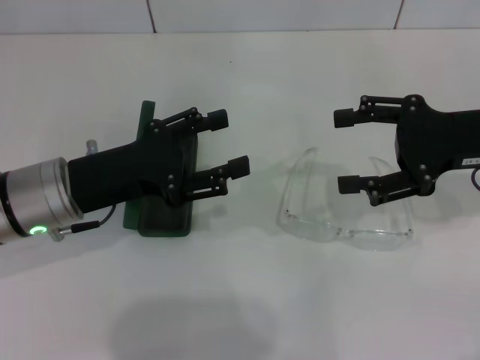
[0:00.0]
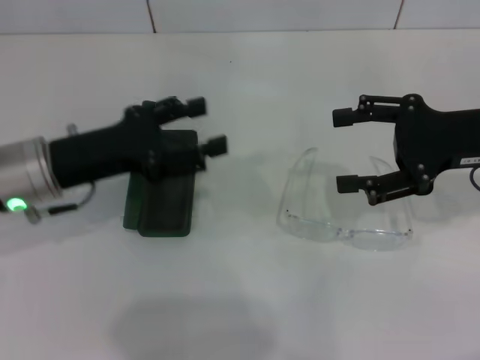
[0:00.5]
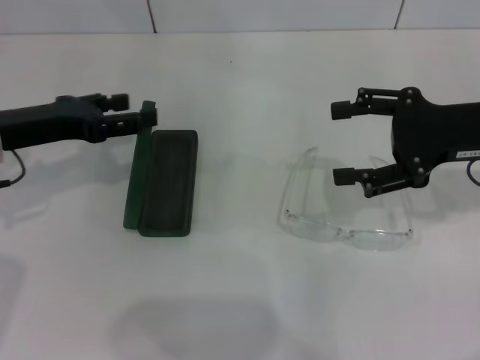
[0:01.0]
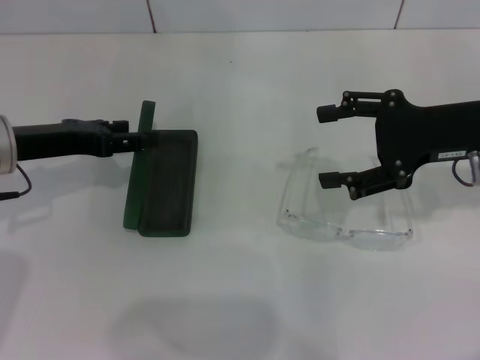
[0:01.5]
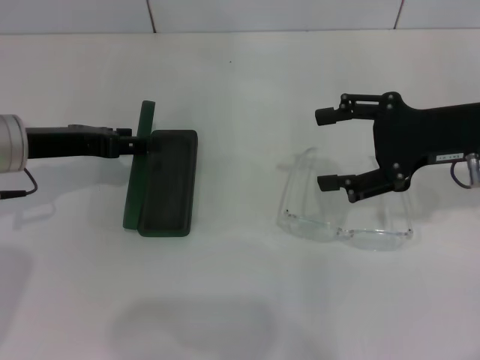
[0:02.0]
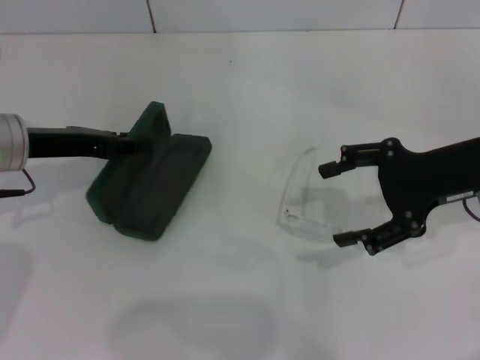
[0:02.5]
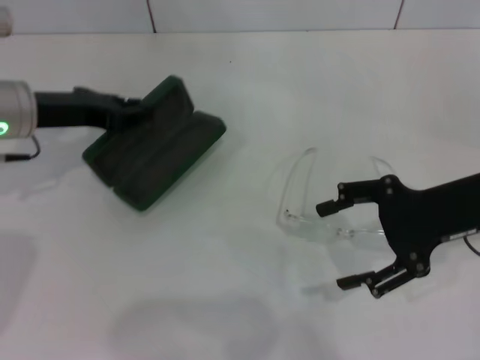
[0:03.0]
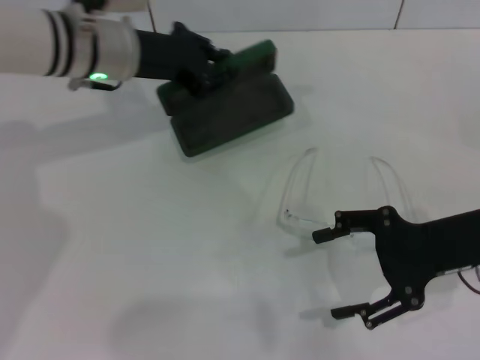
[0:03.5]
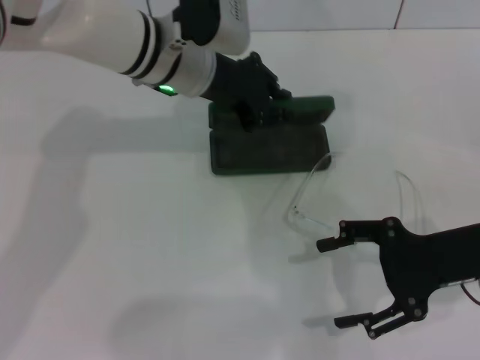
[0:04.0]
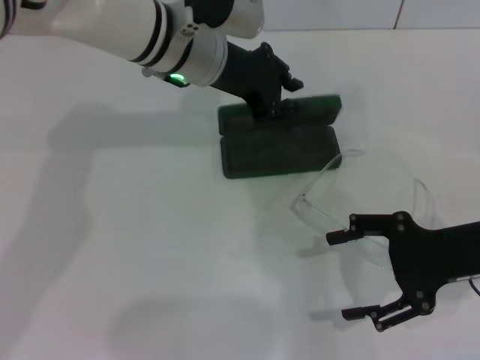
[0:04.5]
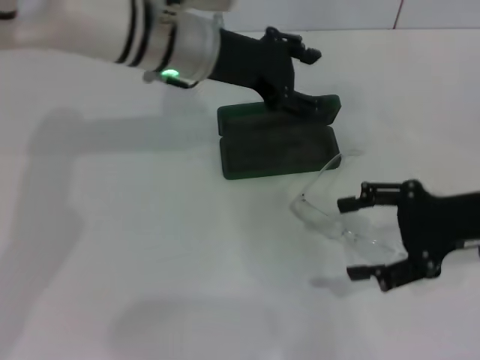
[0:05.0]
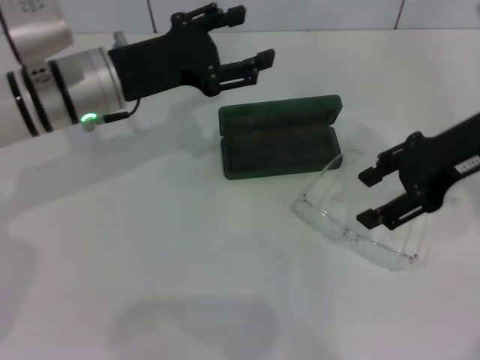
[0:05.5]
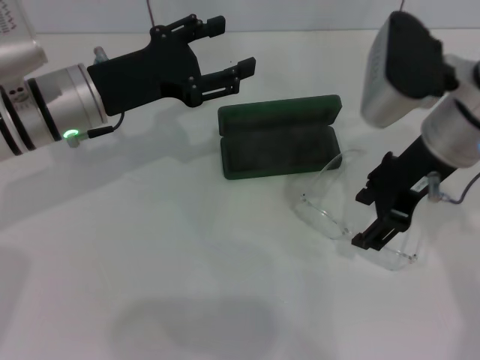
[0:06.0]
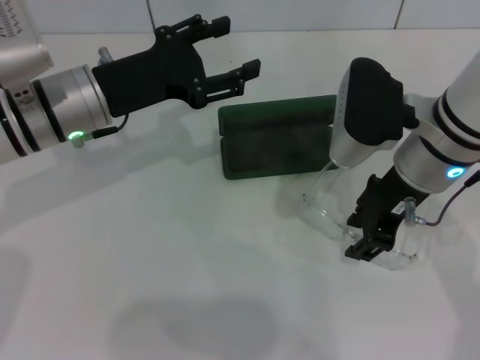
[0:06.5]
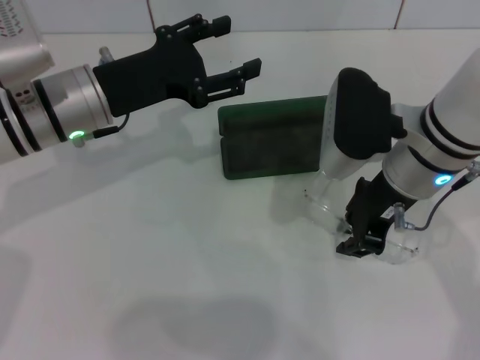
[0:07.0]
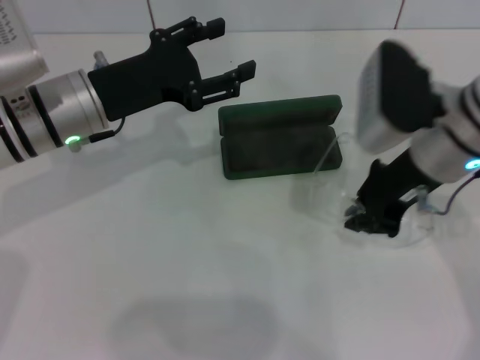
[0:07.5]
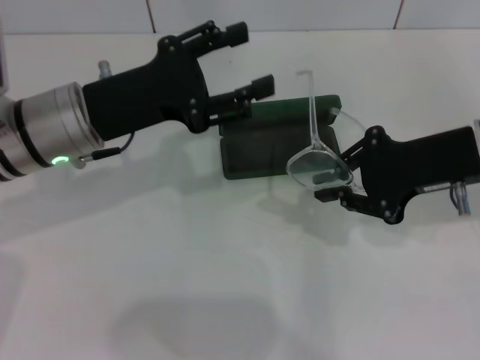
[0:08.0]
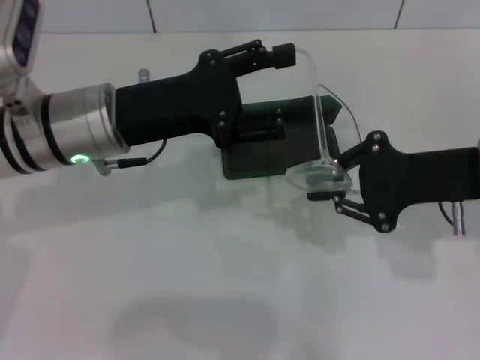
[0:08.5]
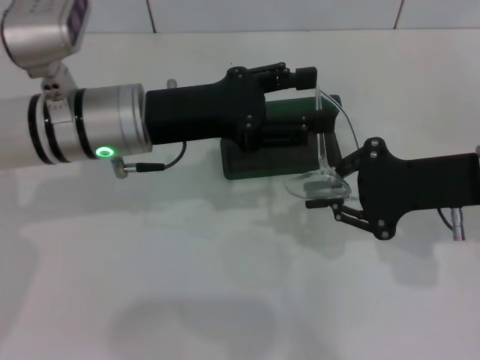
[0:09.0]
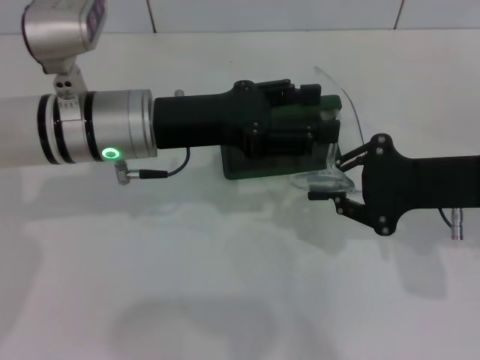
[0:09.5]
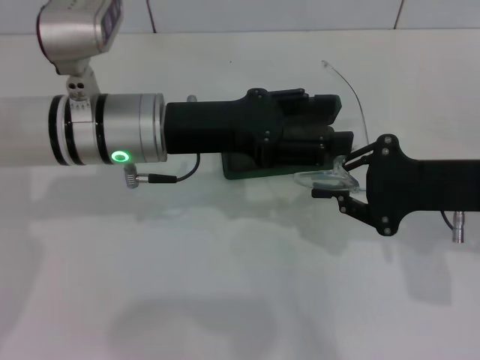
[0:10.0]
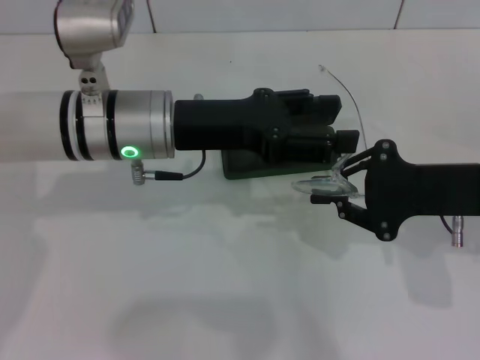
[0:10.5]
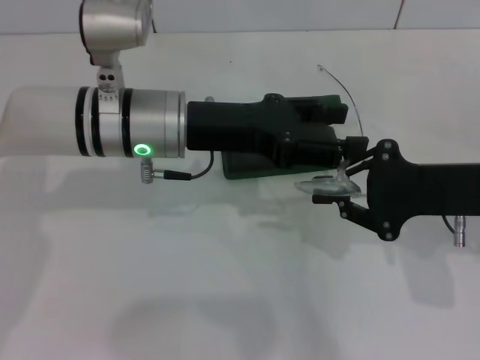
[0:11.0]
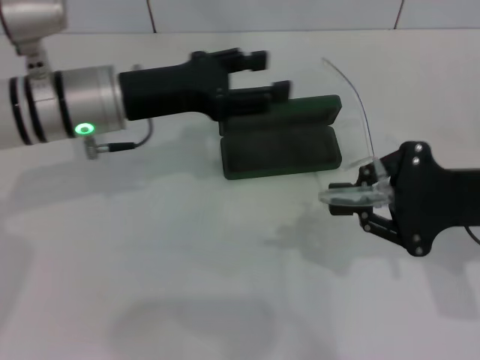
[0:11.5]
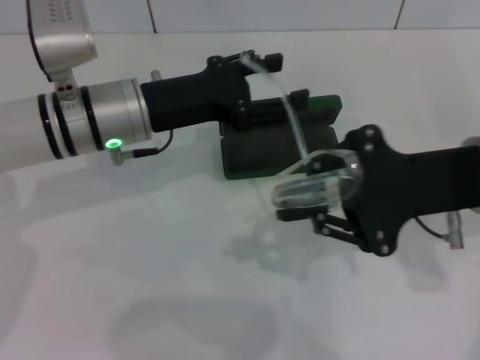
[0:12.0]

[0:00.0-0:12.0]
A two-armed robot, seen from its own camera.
Step, 0:00.0 to 0:02.5: Grab the glasses case with your left hand.
Step, 0:03.0 to 0:04.0: Place the glasses case in the center of the table with your left hand.
Step, 0:04.5 to 0:07.0: Grab the eyeglass frame with your right hand.
0:00.0 to 0:02.0: The left gripper is displaced forward and to the left by about 10 cm.
0:02.0 to 0:04.0: The left gripper travels to the right and forward by approximately 20 cm, and closes its fingers, while the right gripper is displaced backward and downward by about 10 cm.
0:04.0 to 0:06.0: The left gripper moves to the left and backward, approximately 10 cm, and opens up; the right gripper travels upward, to the left and forward by about 15 cm.
0:06.0 to 0:08.0: The right gripper moves to the right, roughly 5 cm, and closes its fingers.
0:08.0 to 0:10.0: The left gripper goes about 5 cm to the right; the right gripper changes place by roughly 5 cm.

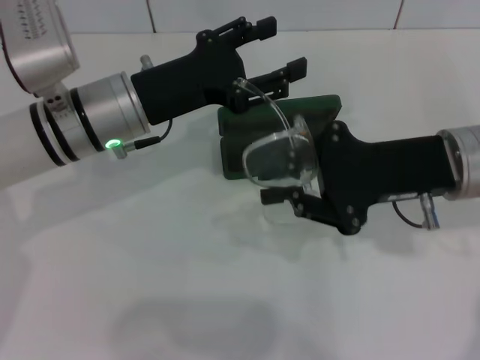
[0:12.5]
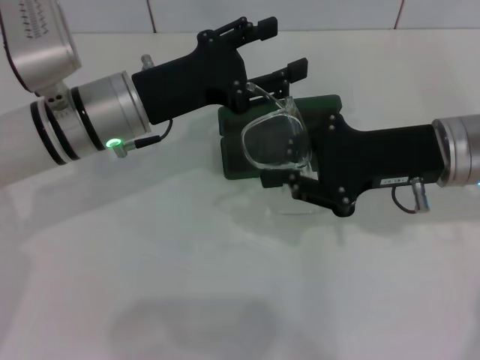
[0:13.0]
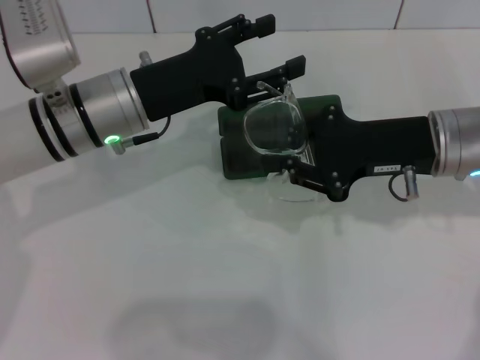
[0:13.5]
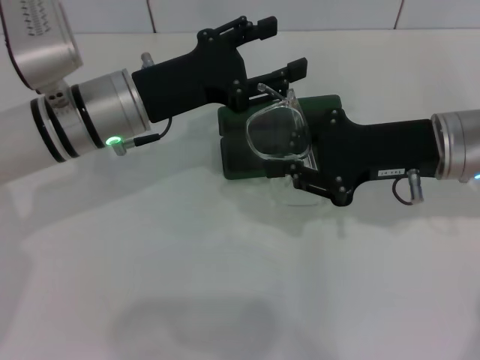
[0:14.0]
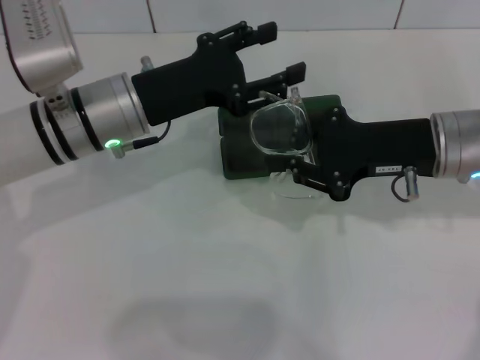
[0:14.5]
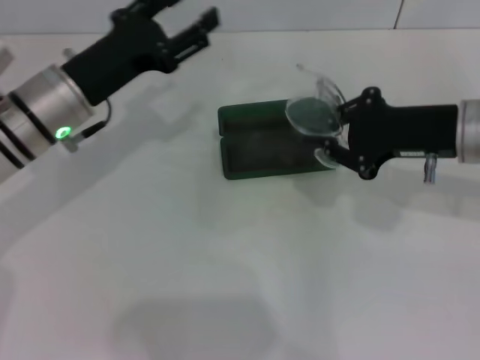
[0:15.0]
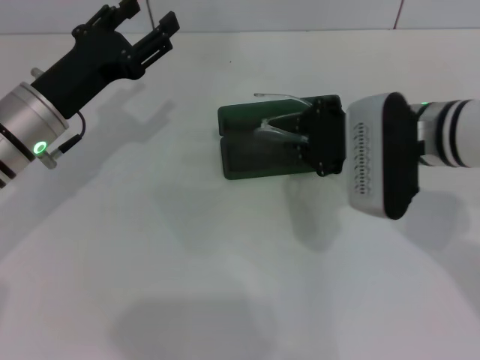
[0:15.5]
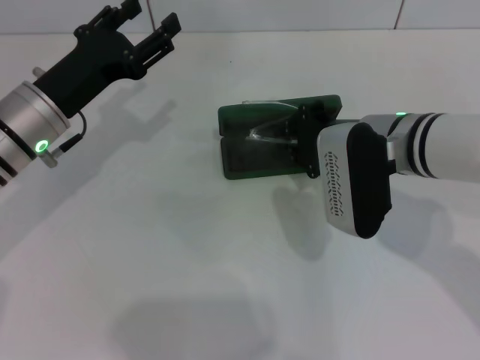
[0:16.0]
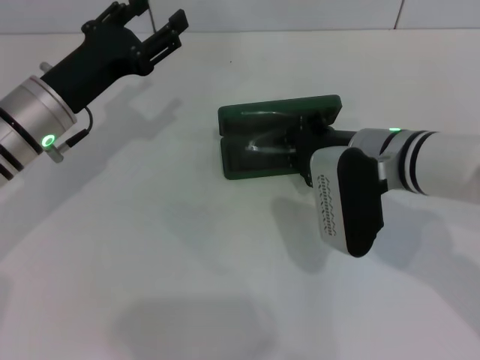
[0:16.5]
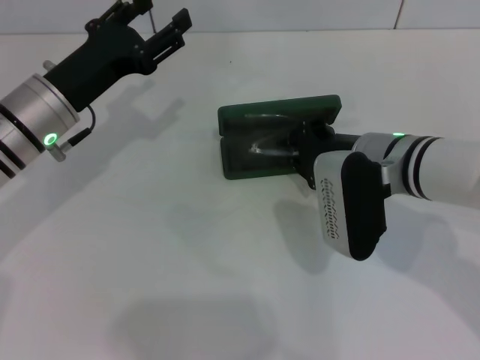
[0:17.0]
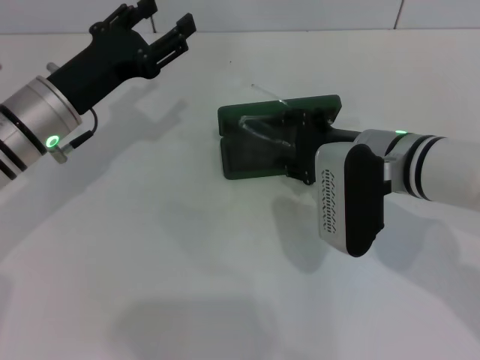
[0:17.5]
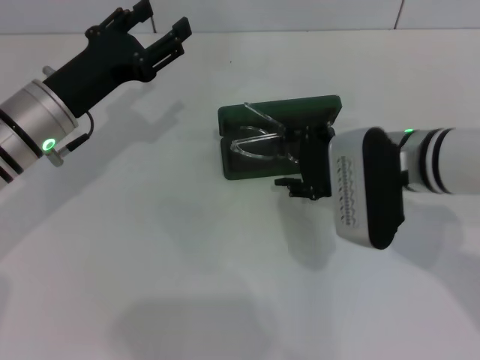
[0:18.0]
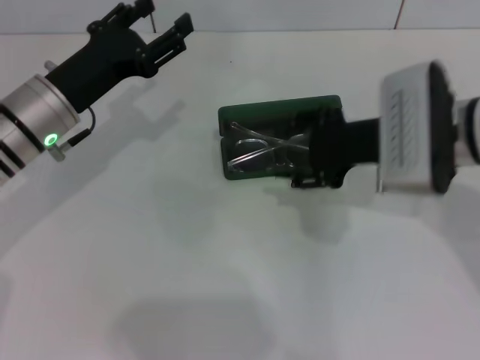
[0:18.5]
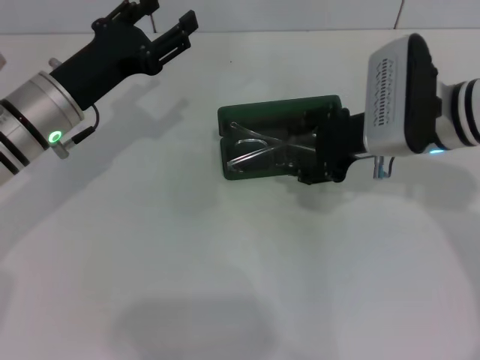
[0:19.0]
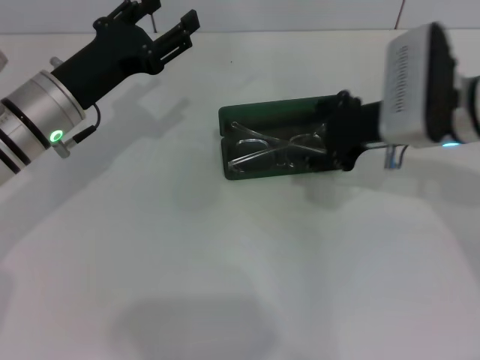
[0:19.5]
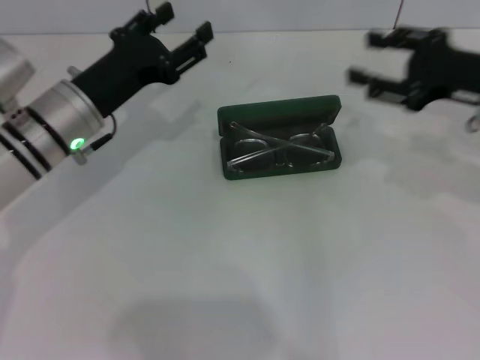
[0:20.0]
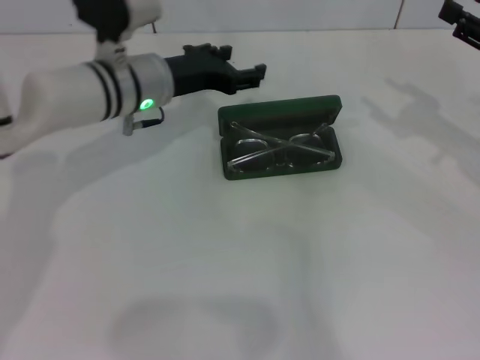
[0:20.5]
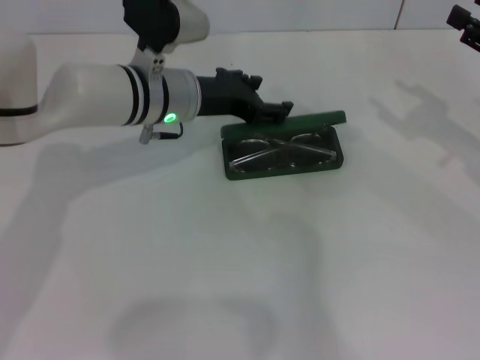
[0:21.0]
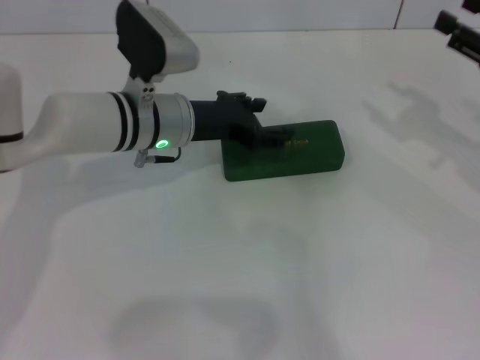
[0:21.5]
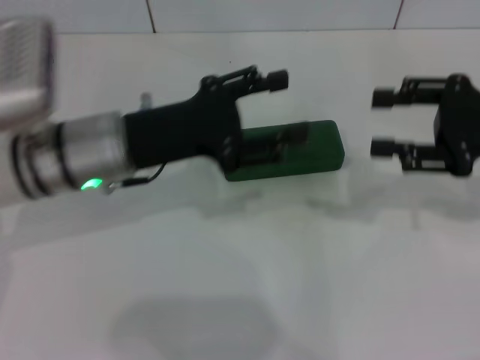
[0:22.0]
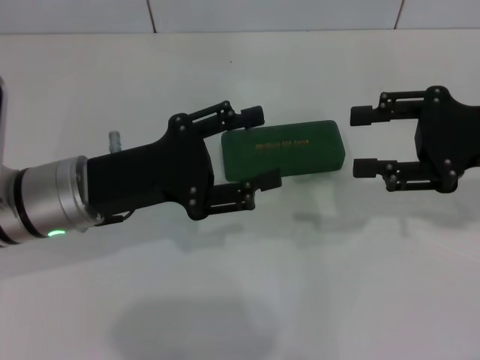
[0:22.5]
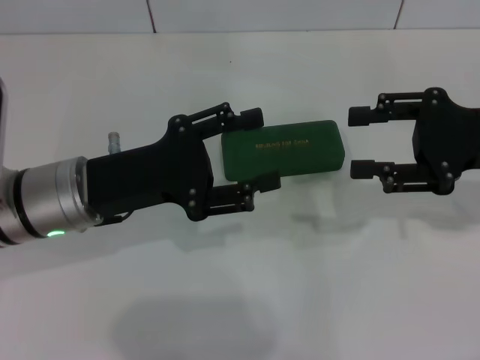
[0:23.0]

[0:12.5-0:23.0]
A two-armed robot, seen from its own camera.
Step, 0:14.0 to 0:18.0: Put the glasses into the case with your right hand.
Step, 0:18.5 to 0:21.0: Close the glasses case with your left hand.
0:12.5 to 0:14.5: The grippers stay close to where they were, moving slightly.
0:14.5 to 0:16.5: Both grippers travel together to the left, approximately 5 cm.
0:16.5 to 0:19.0: The right gripper ends up some 5 cm from where it was, and opens.
0:19.0 to 0:21.0: The right gripper travels to the right by roughly 20 cm. The left gripper travels to the right and forward by roughly 10 cm.
0:21.0 to 0:23.0: The right gripper shifts approximately 5 cm to the left. Meanwhile the left gripper moves backward and to the left, about 15 cm.

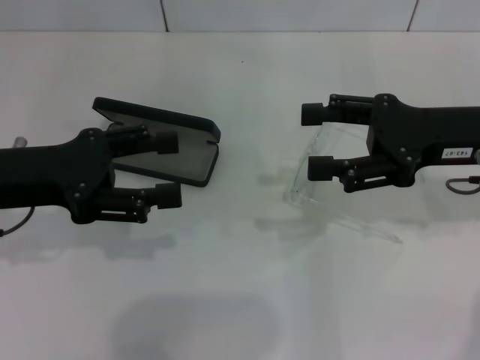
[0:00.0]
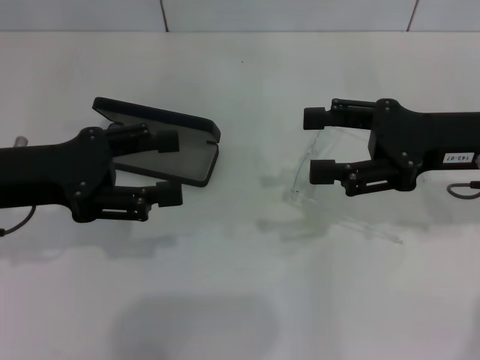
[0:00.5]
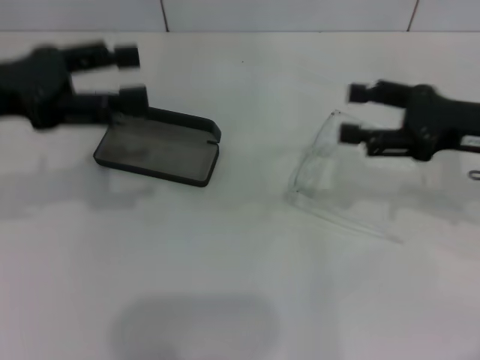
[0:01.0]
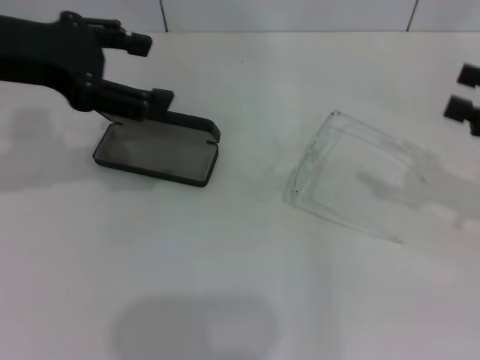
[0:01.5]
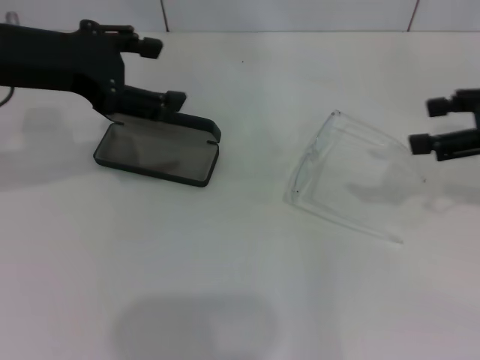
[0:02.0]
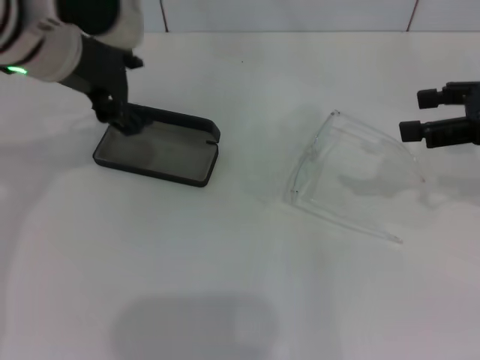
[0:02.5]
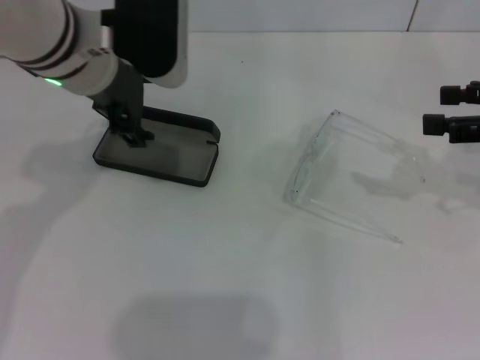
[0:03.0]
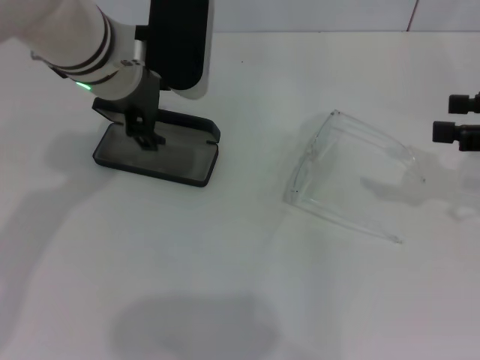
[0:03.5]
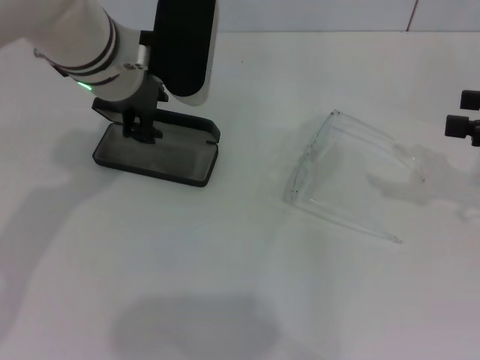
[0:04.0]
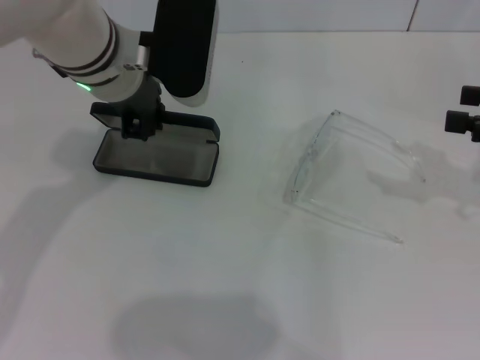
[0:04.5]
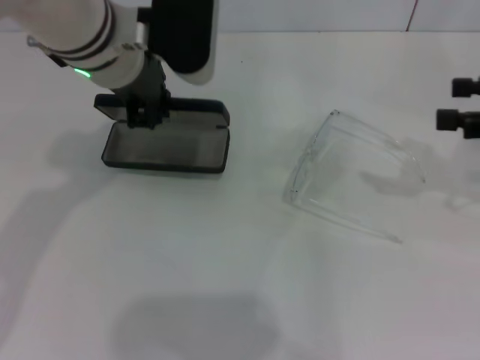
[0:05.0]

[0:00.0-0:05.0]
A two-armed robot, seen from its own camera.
Step, 0:00.0 to 0:04.5: Grab the glasses case with your left hand.
0:00.0 to 0:02.5: The right gripper shifts some 10 cm to the right. The left gripper moves to the right, forward and upward, roughly 15 cm.
0:02.5 to 0:05.0: The left gripper moves to the right, roughly 5 cm, and closes up.
